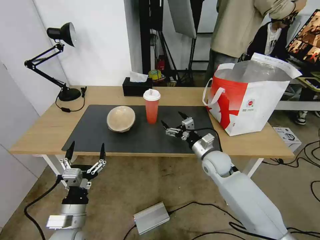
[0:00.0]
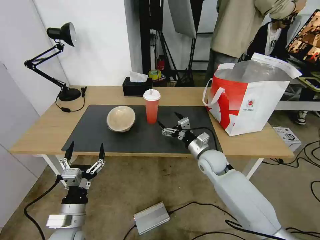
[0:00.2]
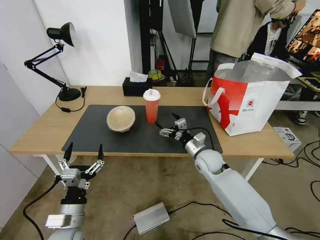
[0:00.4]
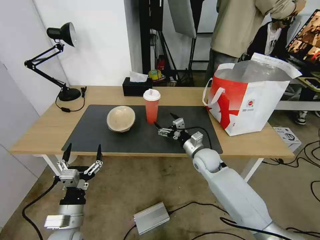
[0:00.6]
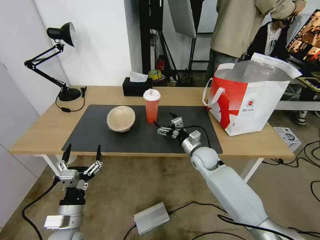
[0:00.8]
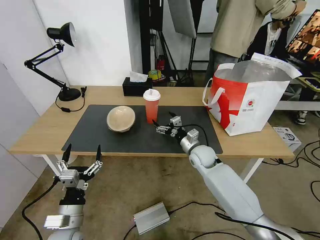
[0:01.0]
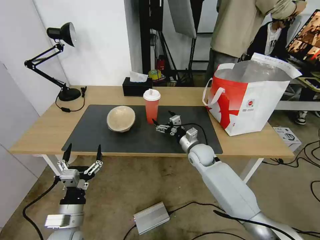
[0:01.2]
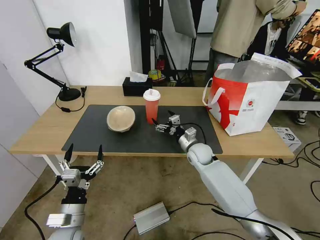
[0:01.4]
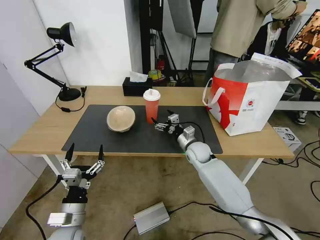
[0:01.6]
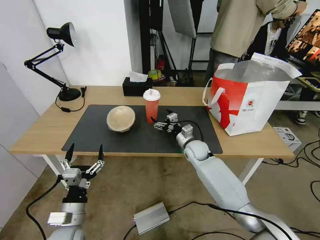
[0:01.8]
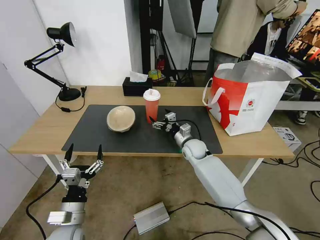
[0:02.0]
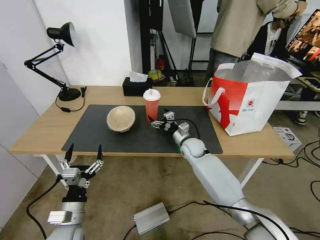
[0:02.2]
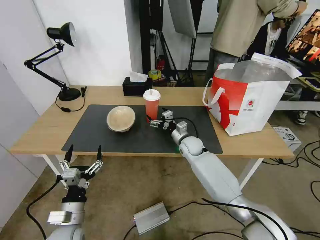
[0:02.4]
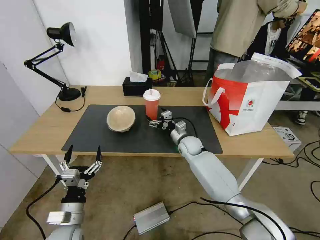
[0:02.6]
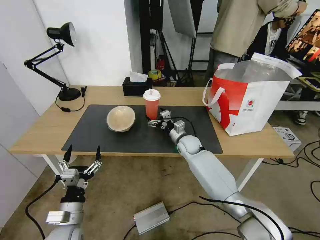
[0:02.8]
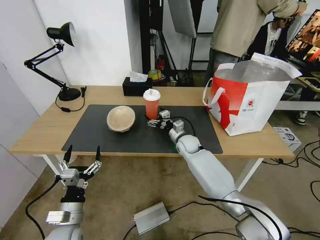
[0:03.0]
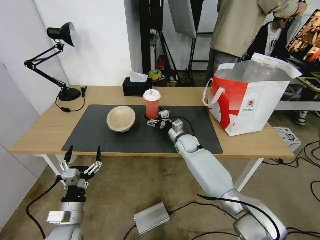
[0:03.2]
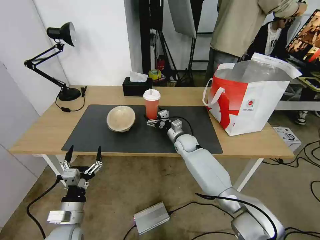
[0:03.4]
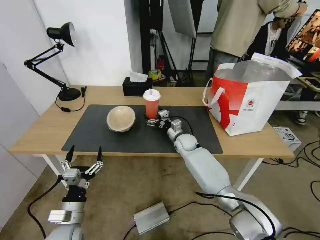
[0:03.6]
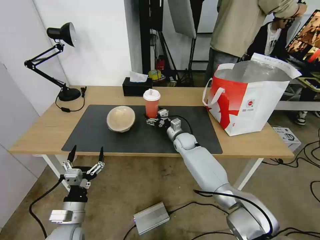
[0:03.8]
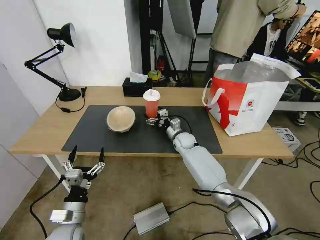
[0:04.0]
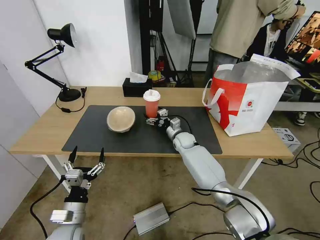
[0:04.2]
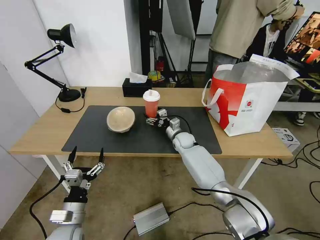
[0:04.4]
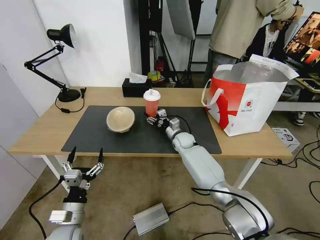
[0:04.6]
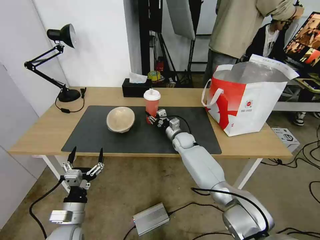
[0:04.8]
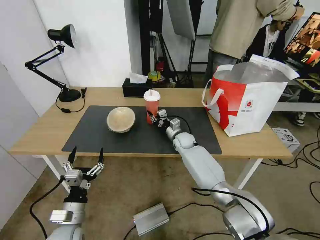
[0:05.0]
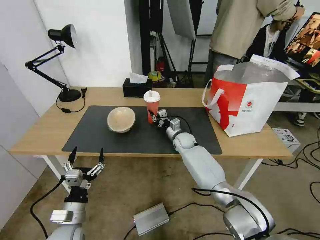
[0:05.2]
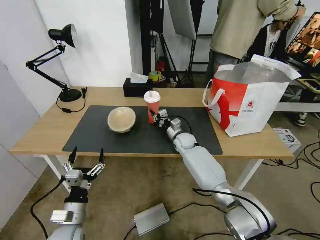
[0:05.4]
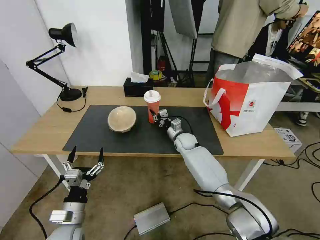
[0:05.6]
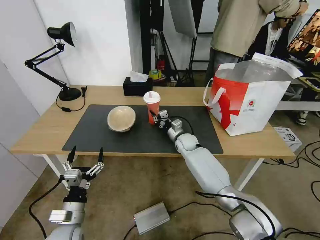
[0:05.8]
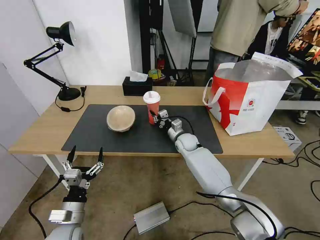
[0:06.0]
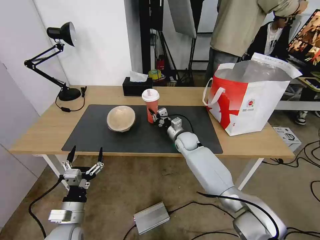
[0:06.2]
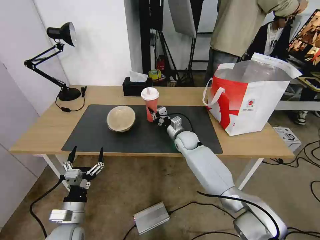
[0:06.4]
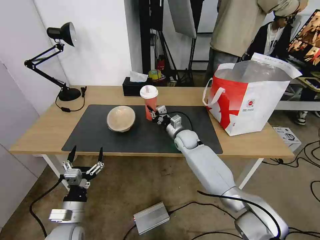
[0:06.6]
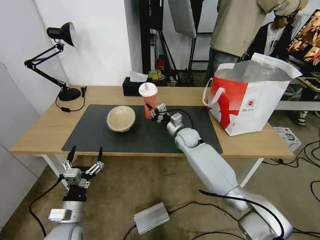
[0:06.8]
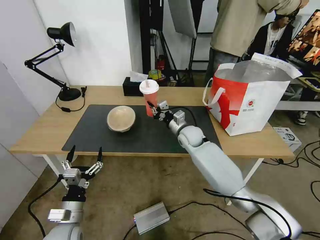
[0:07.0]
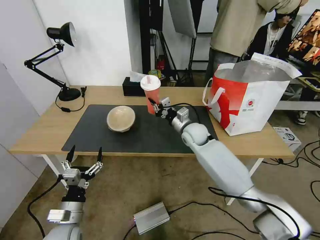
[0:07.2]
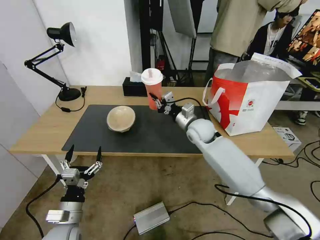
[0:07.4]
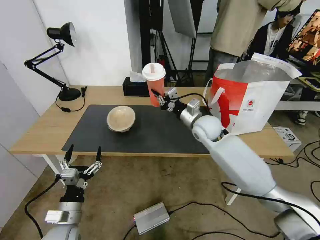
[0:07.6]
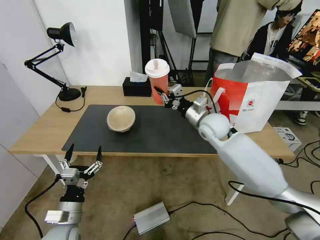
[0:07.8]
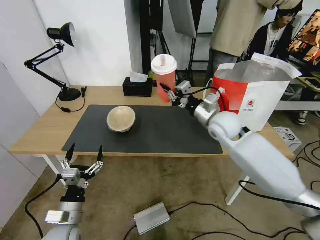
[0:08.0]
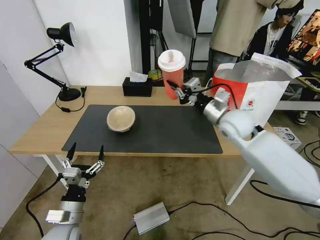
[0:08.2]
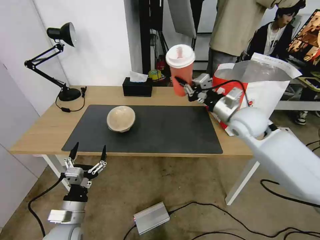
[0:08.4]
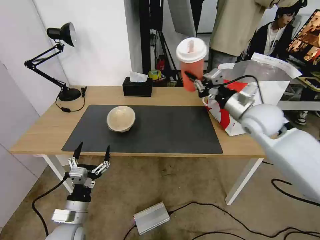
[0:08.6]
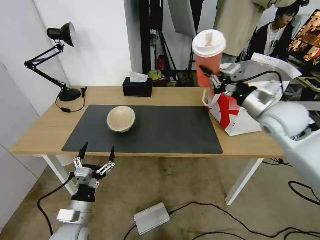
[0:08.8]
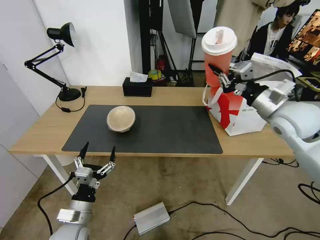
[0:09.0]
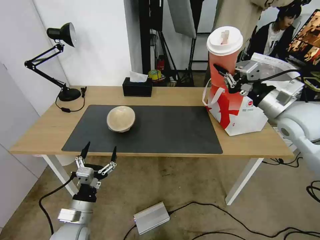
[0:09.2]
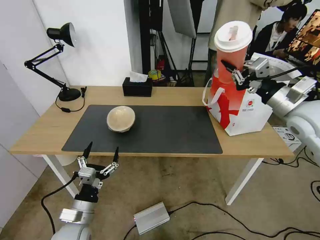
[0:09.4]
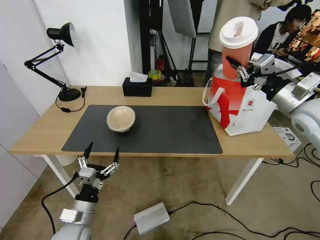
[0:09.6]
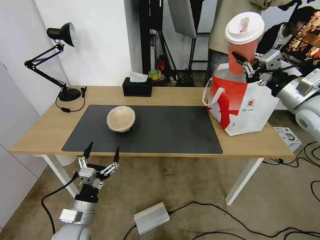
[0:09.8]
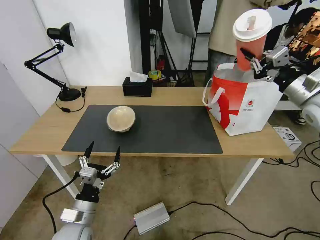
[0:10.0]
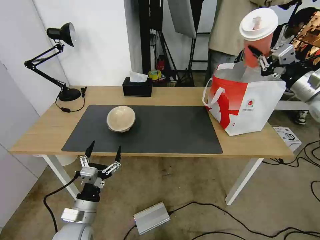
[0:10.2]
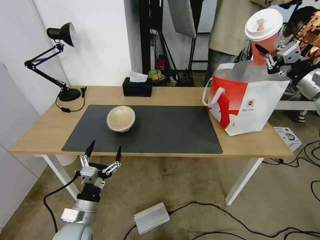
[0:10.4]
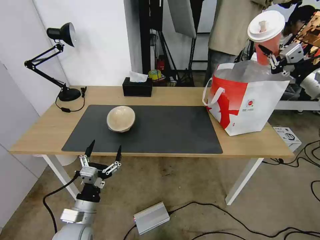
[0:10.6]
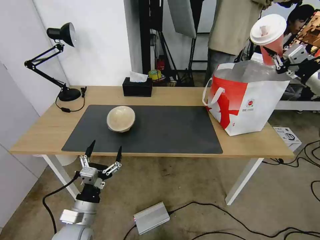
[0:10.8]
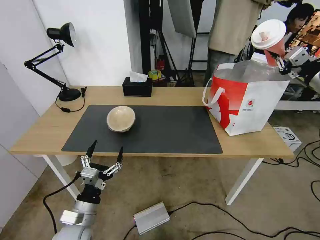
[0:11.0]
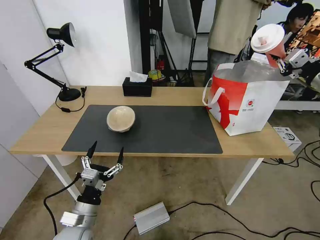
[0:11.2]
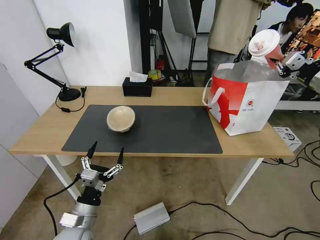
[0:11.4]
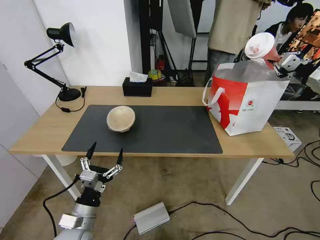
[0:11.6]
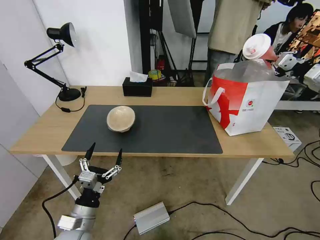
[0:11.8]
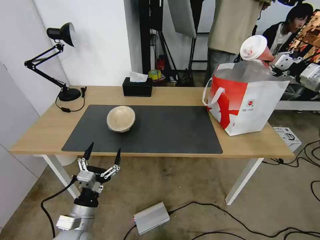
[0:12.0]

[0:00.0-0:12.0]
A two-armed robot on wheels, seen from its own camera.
Task of the whole recording: Pick up the trash from the table and place it into the takeout bag.
0:00.0 to 0:01.6: The right gripper heads forward, covering approximately 5 cm.
0:01.6 to 0:03.0: The right gripper ends up about 5 cm from where it was.
0:03.0 to 0:04.4: There are only small adjustments of the grippers.
0:04.4 to 0:06.0: The right gripper closes up.
0:06.0 to 0:07.6: The right gripper travels upward by roughly 15 cm.
0:07.6 to 0:09.0: The right gripper moves to the right, upward and backward, about 25 cm.
0:09.0 to 0:10.4: The right gripper moves to the right, about 10 cm.
0:10.4 to 0:12.0: The right gripper shifts roughly 10 cm forward and to the right.

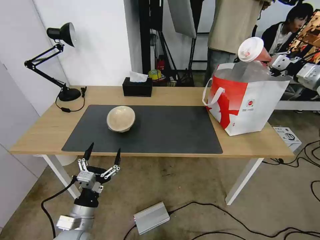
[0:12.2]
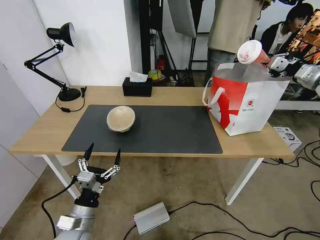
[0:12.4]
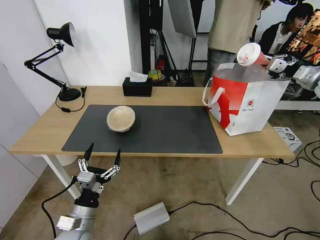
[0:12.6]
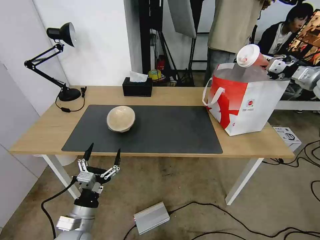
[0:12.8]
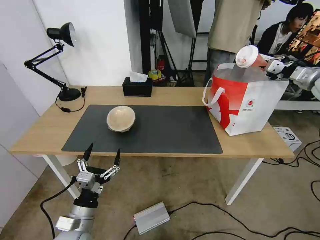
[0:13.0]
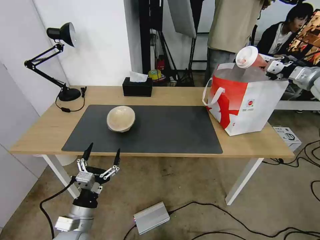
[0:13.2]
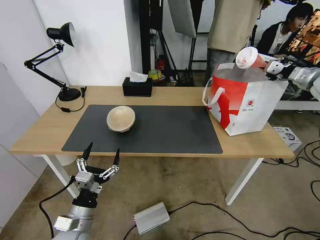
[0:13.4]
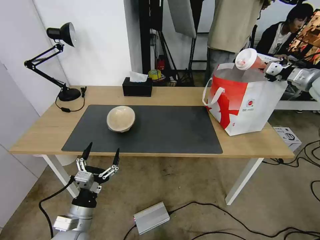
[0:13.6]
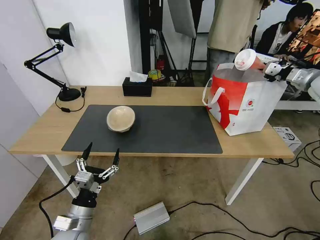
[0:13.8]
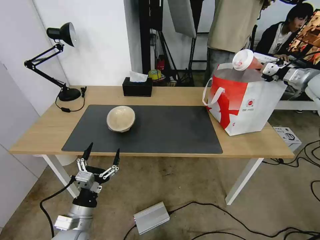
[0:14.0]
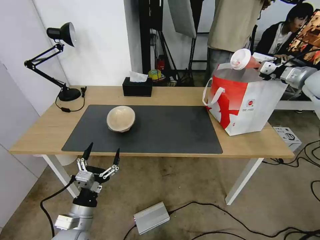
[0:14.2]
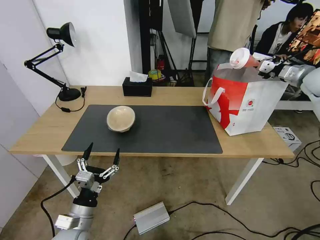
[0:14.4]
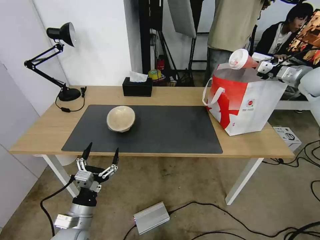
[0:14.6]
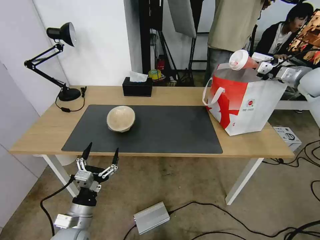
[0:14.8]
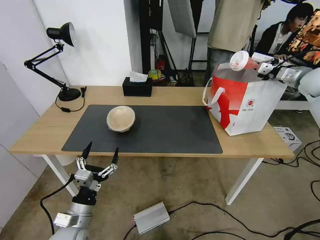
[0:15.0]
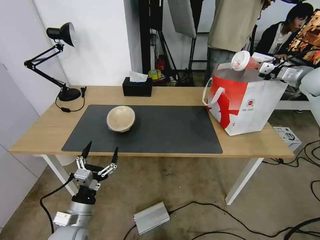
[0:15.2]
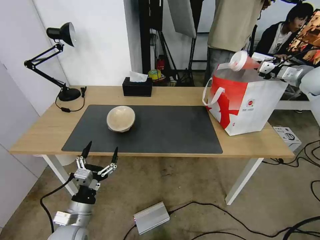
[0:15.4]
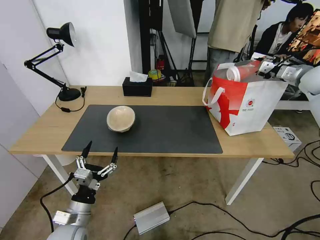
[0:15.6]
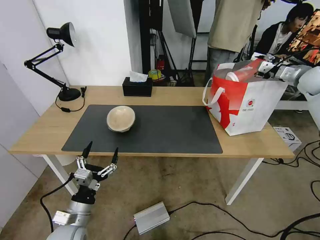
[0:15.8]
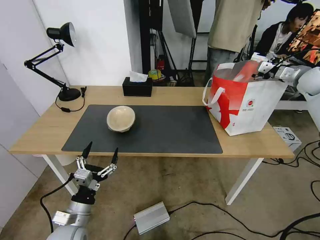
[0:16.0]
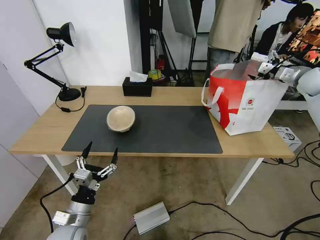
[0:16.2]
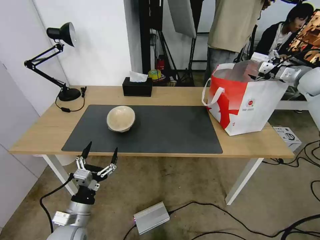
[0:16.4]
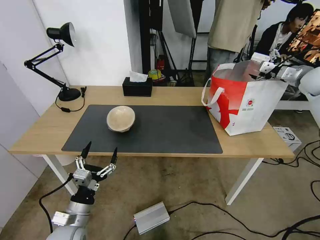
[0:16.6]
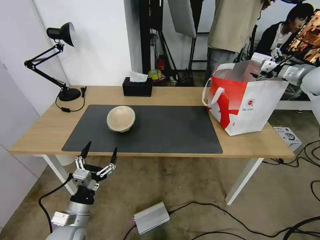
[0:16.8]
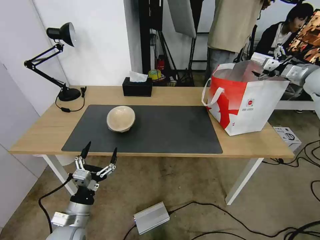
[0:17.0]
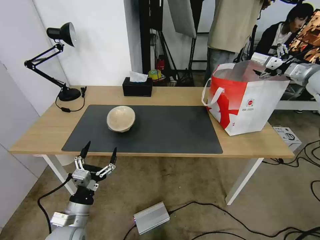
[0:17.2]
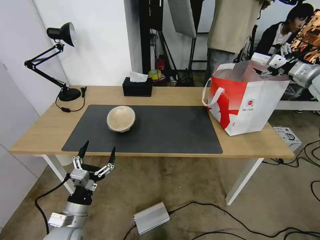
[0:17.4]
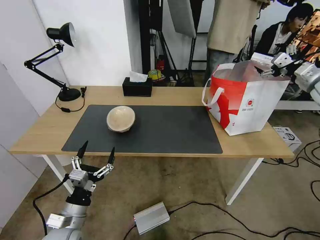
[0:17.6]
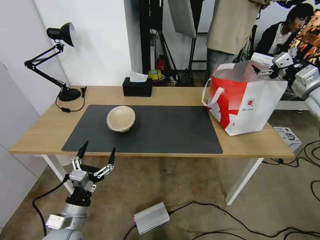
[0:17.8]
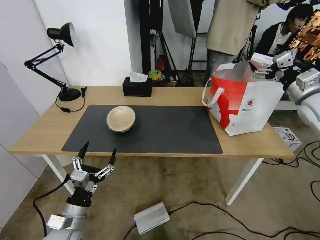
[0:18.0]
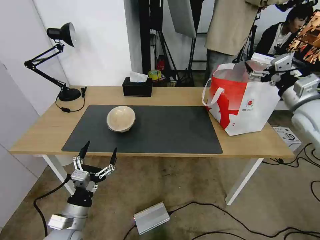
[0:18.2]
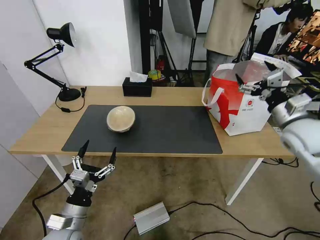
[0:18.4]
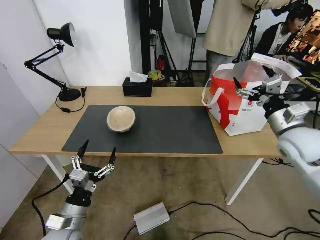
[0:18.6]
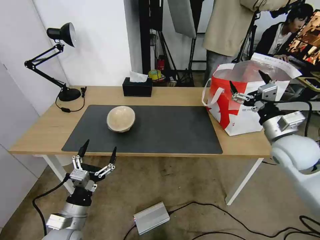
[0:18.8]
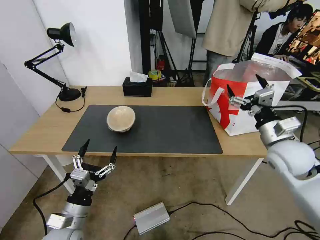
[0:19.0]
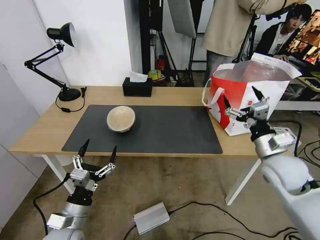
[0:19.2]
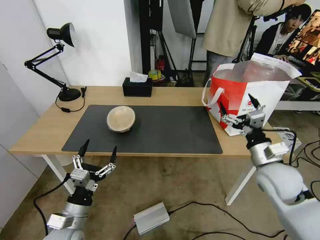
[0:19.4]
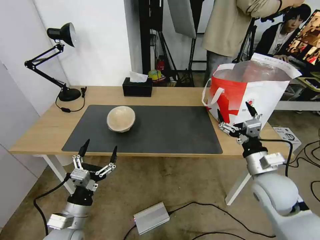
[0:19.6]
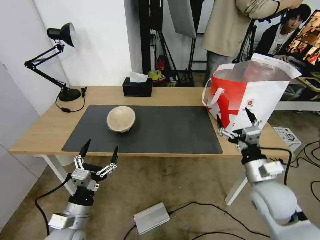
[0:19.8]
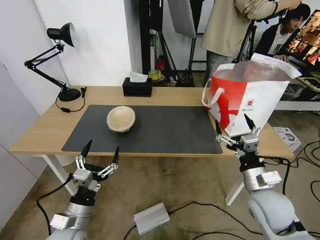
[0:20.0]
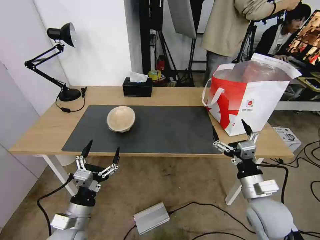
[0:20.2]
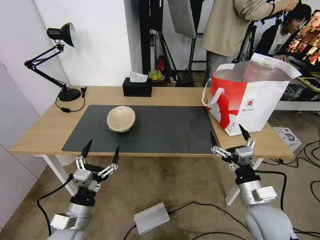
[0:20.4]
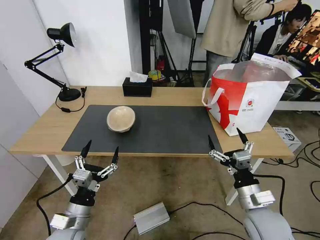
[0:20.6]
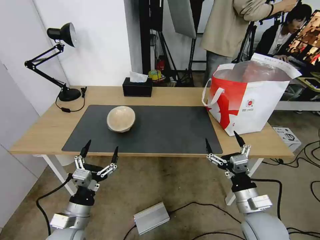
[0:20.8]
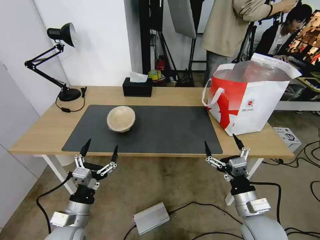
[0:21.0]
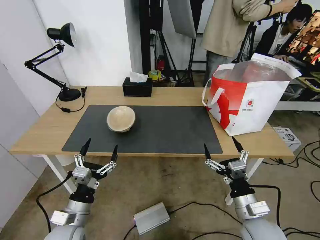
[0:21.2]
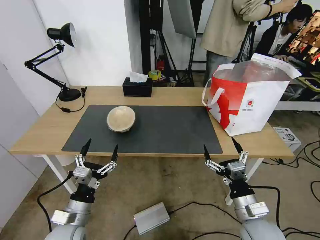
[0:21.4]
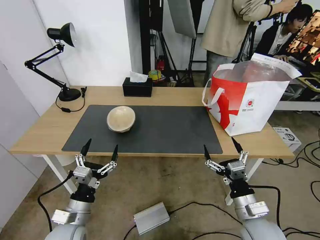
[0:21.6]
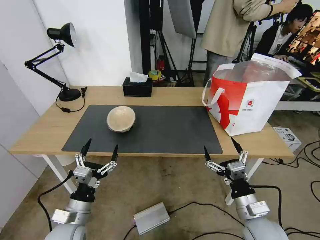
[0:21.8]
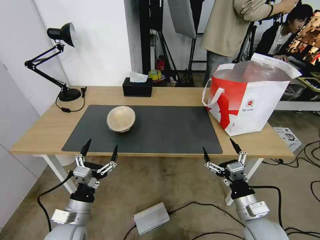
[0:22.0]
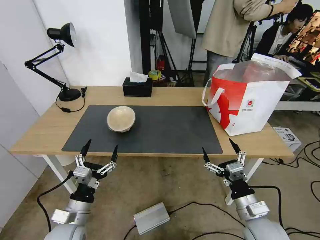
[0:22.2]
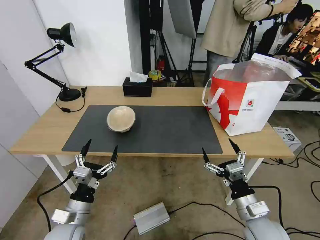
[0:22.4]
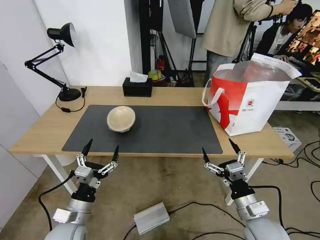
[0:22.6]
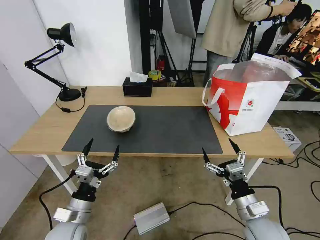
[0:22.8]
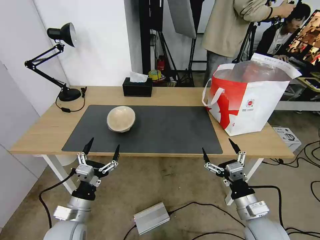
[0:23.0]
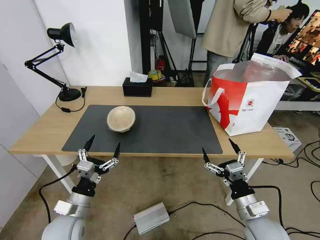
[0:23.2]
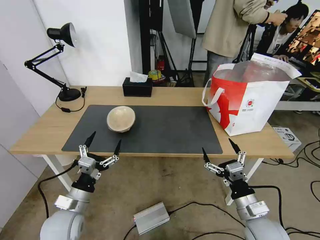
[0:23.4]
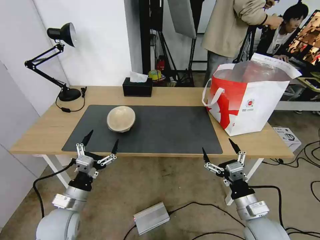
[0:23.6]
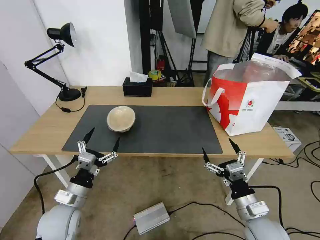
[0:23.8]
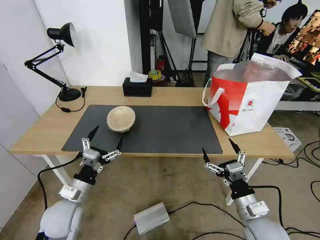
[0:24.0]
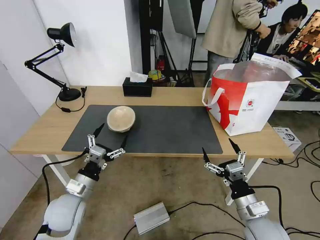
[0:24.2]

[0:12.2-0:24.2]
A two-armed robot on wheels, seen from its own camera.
Task of the whole recording: Pick up the trash from the table and place it into the takeout bag.
0:12.2 to 0:13.8: There are only small adjustments of the grippers.
0:13.8 to 0:15.2: The grippers make only small movements.
0:15.2 to 0:16.6: The right gripper opens its fingers.
0:16.6 to 0:18.2: The right gripper shifts approximately 20 cm backward and to the left.
0:18.2 to 0:19.8: The right gripper travels downward, backward and to the left by some 25 cm.
0:19.8 to 0:21.2: The right gripper goes approximately 10 cm backward and downward.
0:21.2 to 0:22.6: The grippers stay close to where they were, moving slightly.
0:22.6 to 0:24.2: The left gripper heads forward, covering roughly 5 cm.
